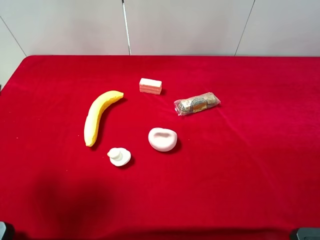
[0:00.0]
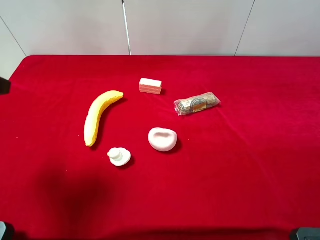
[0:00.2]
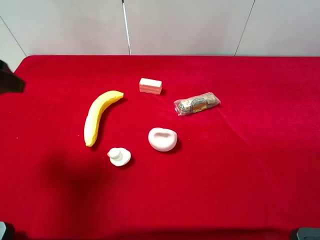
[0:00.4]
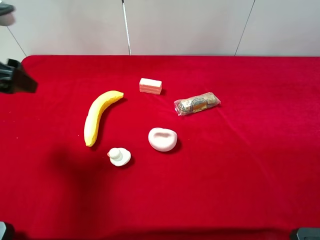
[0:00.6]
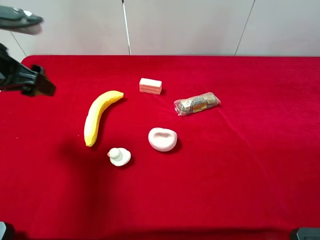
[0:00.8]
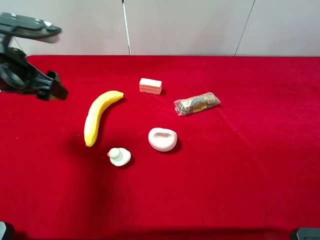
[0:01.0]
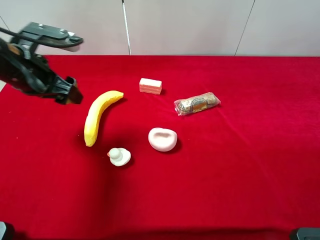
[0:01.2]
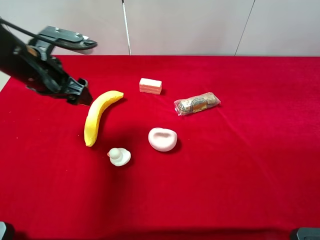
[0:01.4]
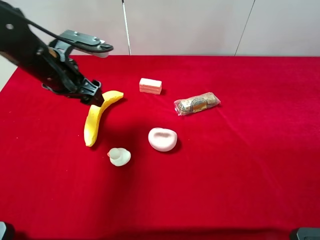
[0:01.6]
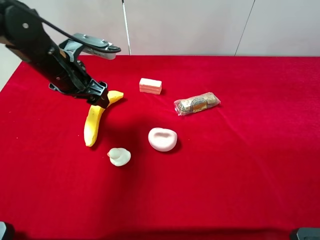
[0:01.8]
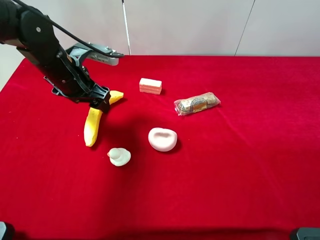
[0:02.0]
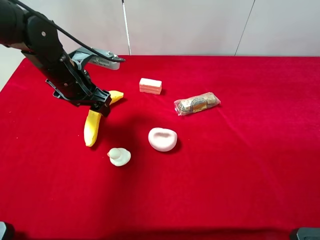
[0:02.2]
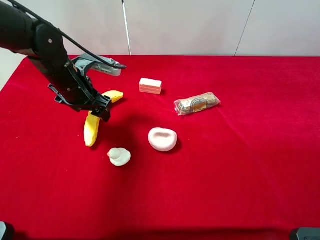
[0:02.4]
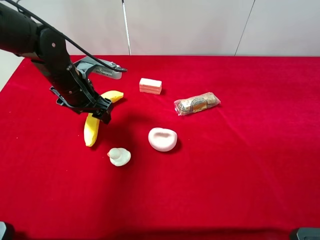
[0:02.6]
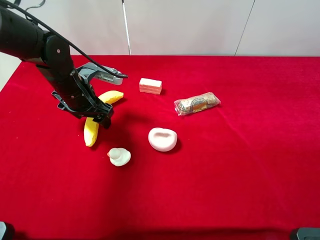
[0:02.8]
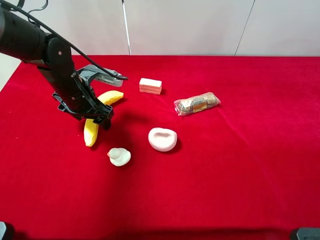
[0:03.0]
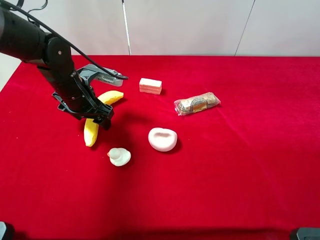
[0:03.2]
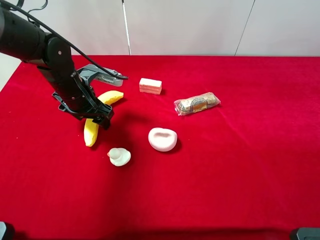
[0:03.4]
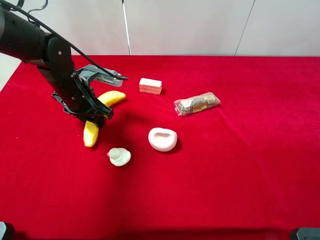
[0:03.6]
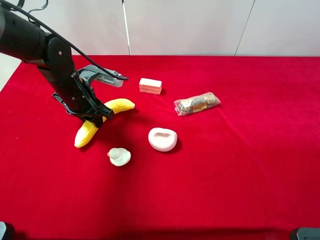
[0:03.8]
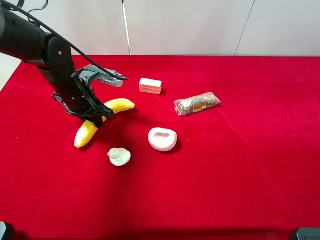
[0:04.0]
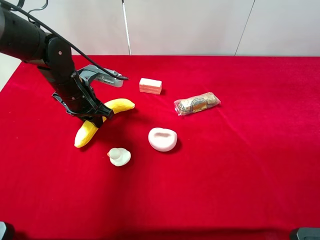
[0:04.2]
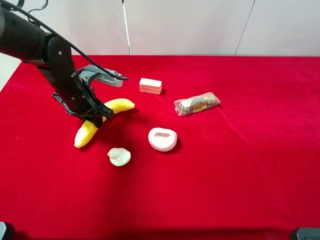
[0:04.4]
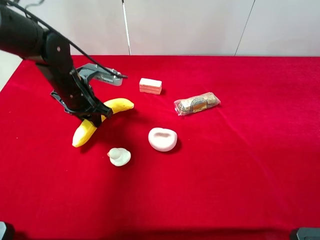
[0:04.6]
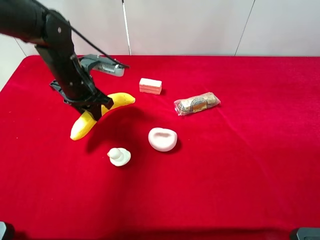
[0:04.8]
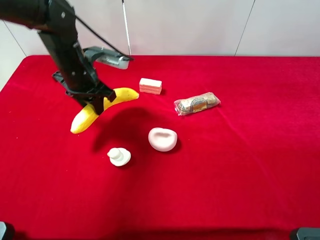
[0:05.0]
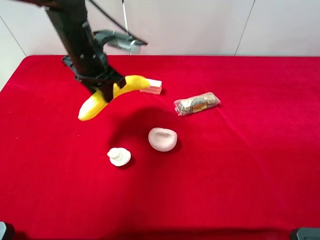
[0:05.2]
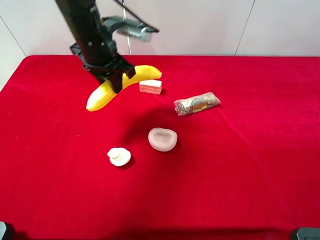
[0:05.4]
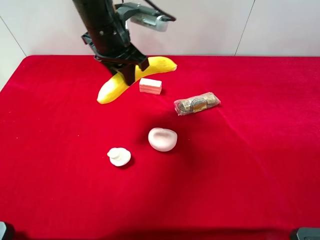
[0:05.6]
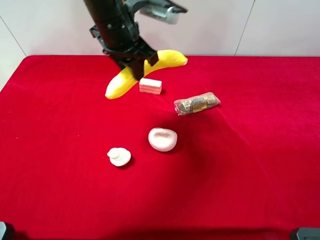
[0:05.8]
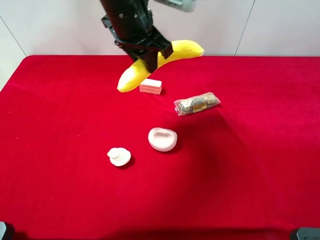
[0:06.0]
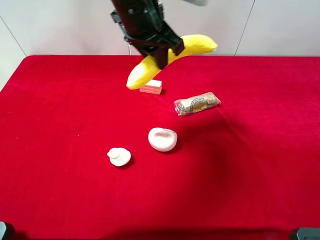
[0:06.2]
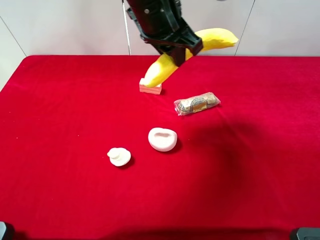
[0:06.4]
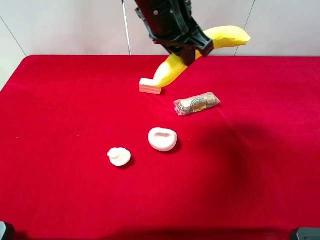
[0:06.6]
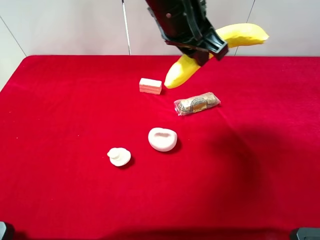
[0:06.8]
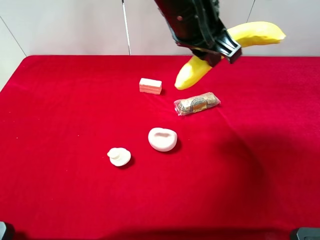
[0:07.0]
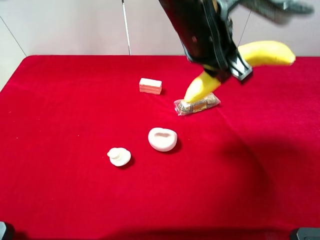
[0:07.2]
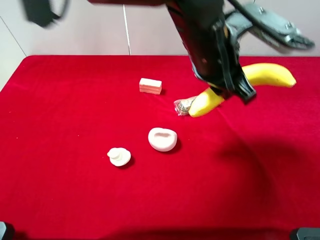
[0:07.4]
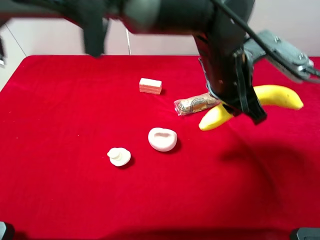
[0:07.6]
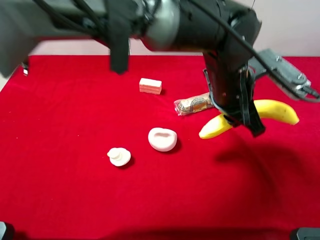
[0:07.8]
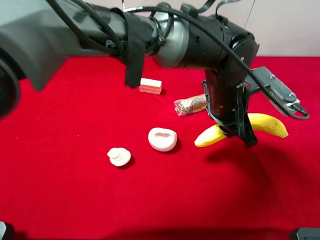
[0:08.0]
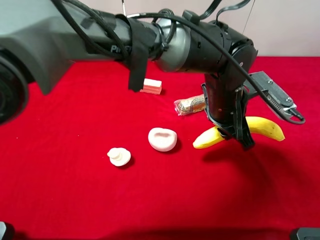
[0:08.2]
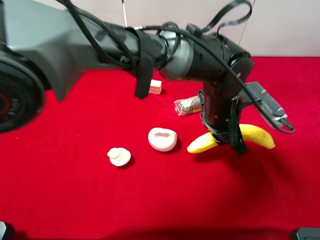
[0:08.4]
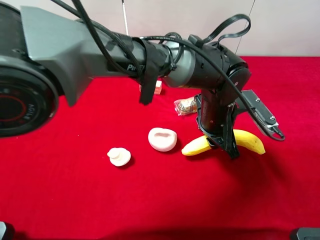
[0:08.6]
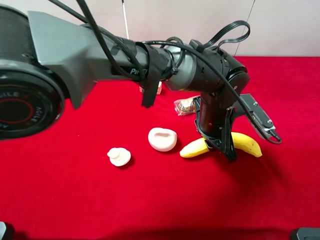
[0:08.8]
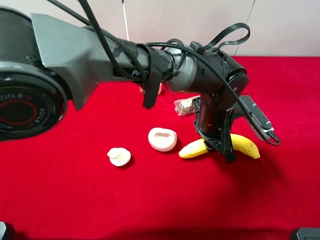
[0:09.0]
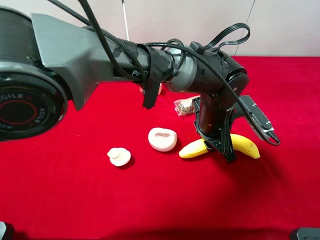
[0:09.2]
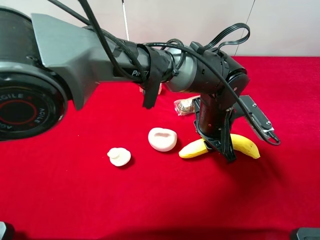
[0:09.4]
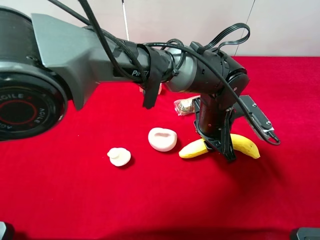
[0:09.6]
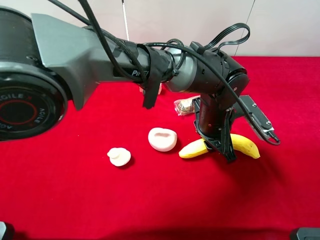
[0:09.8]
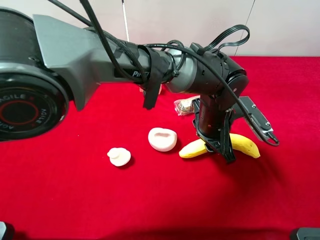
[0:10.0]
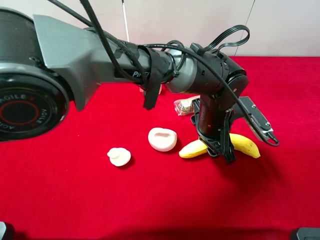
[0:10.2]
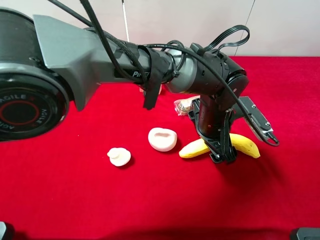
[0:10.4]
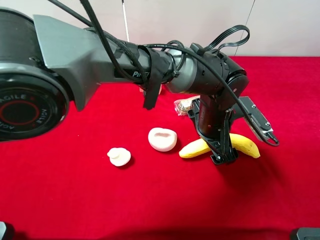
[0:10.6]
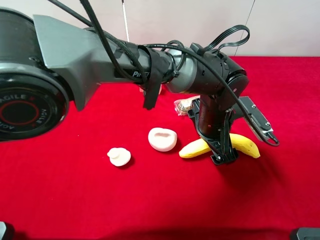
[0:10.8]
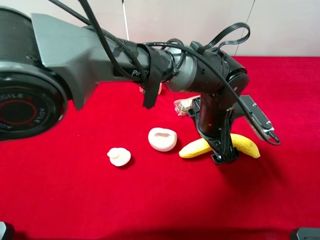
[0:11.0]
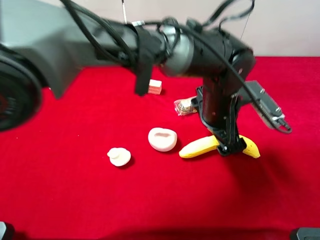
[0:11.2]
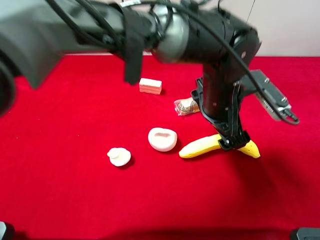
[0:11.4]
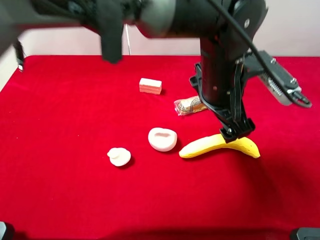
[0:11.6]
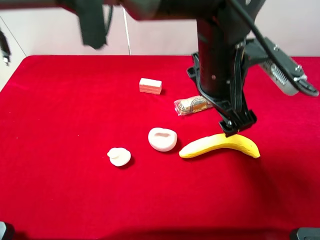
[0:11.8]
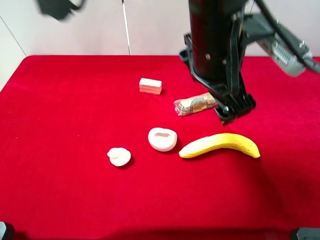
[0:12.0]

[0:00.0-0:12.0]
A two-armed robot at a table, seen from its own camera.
Task of the whole recording: the gripper move the object.
Step, 0:00.0 to 0:03.8: Grasp the banana with the left gripper.
Step, 0:04.0 to 0:11.8: Place the banana on the table with the left gripper.
0:00.0 to 0:01.6: The left gripper is displaced forward, to the right and downward by roughly 20 cm.
0:01.6 to 0:03.0: The left gripper travels downward by about 5 cm.
0:03.0 to 0:04.4: The left gripper closes.
0:04.4 to 0:06.0: The left gripper moves upward and to the right, about 20 cm.
0:06.0 to 0:07.6: The left gripper heads to the right, backward and downward, covering some 20 cm.
0:07.6 to 0:09.0: The left gripper goes about 10 cm downward.
0:09.0 to 0:10.4: The left gripper opens its fingers.
0:10.4 to 0:12.0: The left gripper heads upward, covering roughly 15 cm.

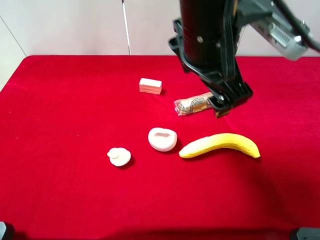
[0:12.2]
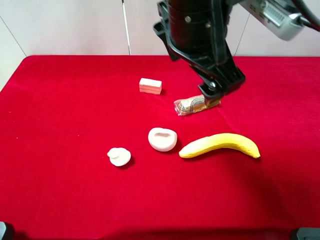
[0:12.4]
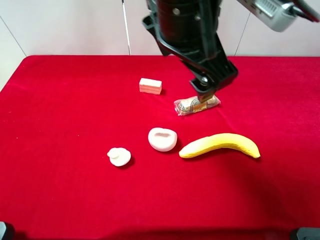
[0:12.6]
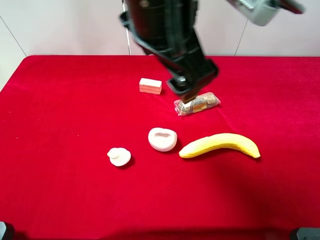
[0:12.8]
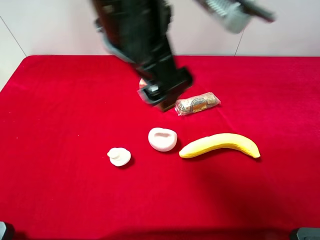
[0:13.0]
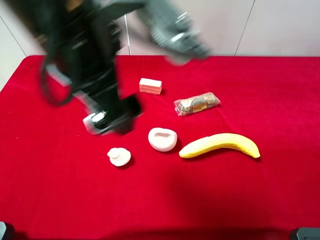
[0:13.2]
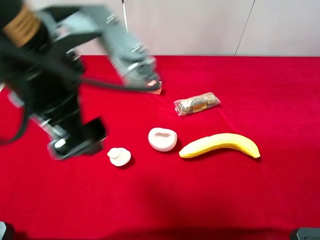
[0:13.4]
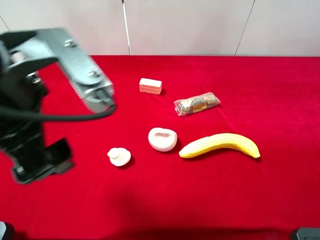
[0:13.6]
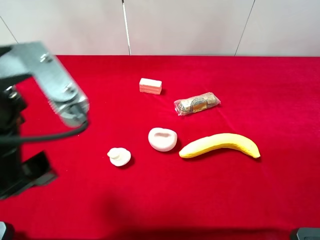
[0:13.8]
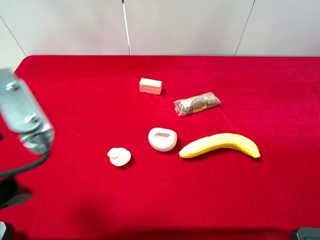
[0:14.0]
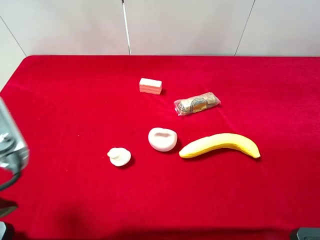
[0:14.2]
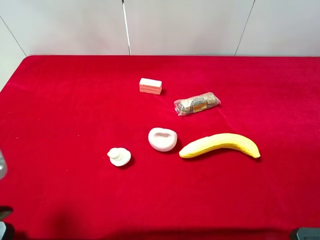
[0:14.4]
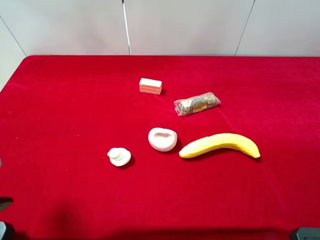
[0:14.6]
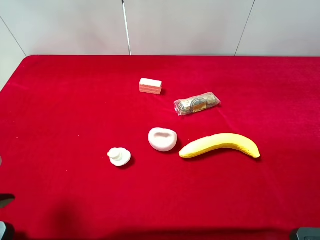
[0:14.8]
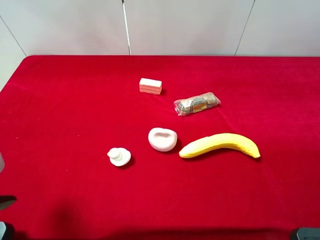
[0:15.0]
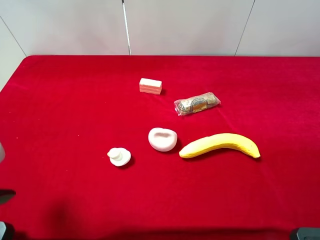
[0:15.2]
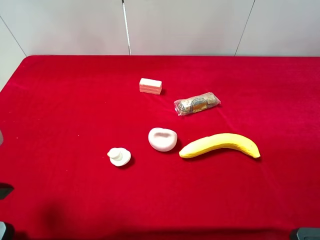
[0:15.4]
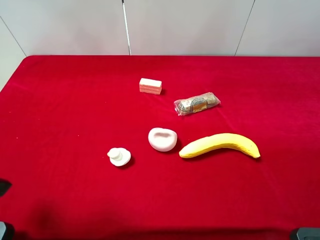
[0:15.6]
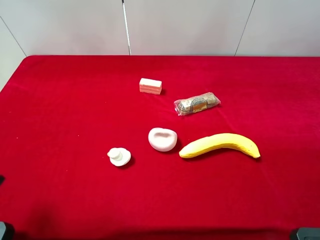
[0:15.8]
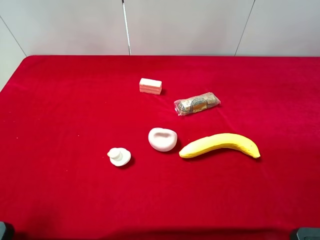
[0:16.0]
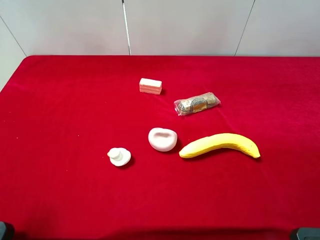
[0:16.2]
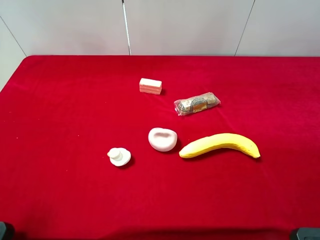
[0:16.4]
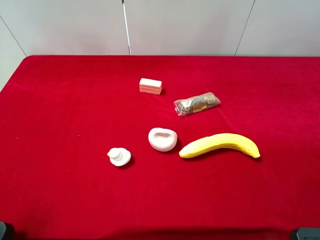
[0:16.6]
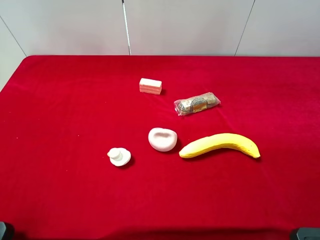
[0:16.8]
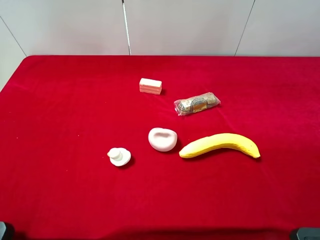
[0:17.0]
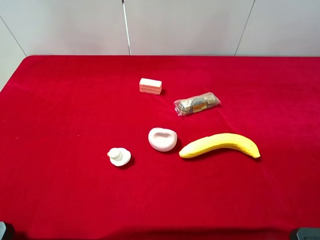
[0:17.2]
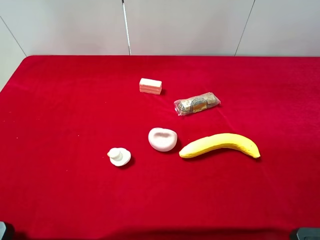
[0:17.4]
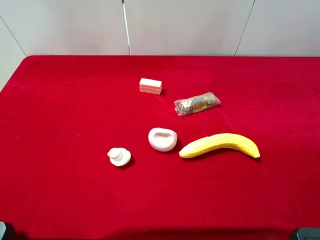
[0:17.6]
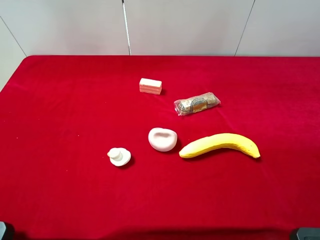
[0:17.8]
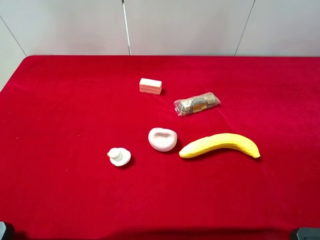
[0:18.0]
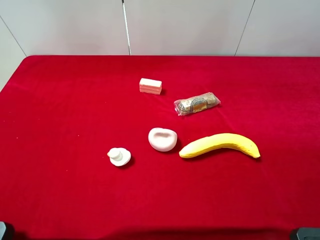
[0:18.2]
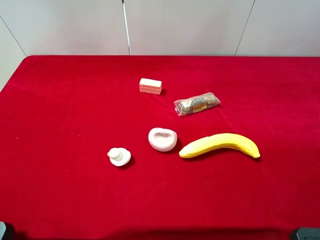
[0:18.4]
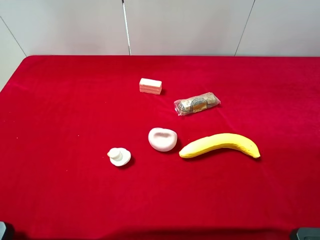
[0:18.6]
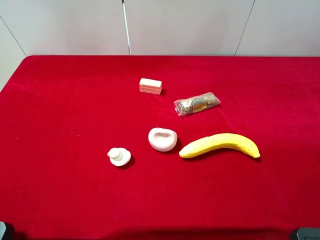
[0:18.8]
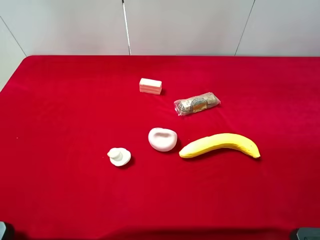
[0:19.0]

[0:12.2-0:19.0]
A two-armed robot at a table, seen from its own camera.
Task of the whole recording: the gripper move the object.
0:12.2 to 0:13.6: The left gripper is displaced to the left and backward by some 25 cm.
0:13.6 to 0:15.0: The left gripper goes some 10 cm to the left.
0:17.6 to 0:19.0: Both grippers stay about where they are.
